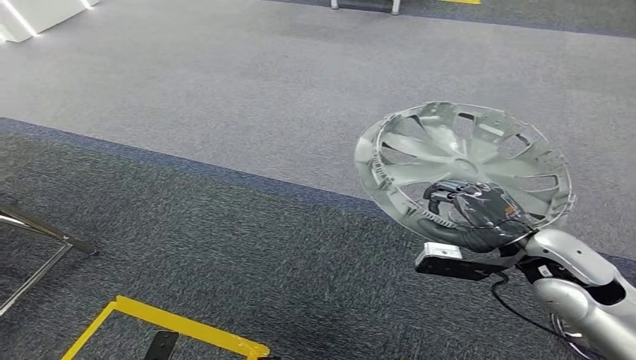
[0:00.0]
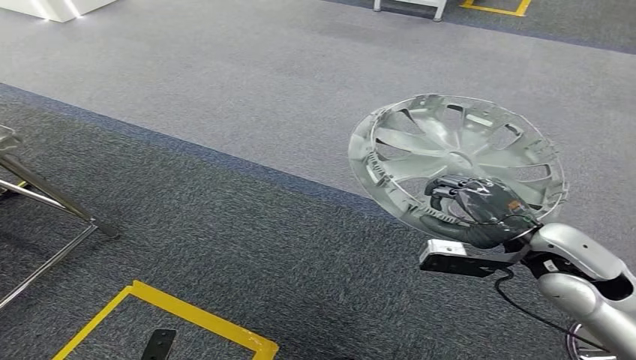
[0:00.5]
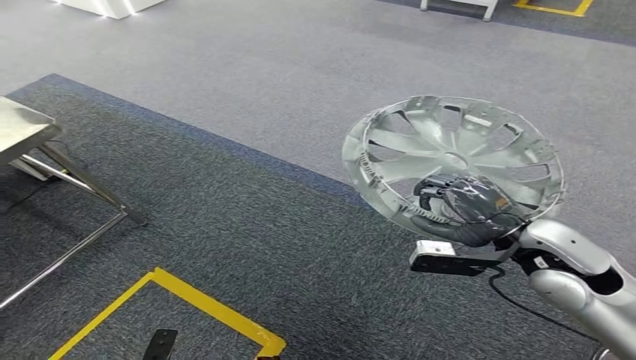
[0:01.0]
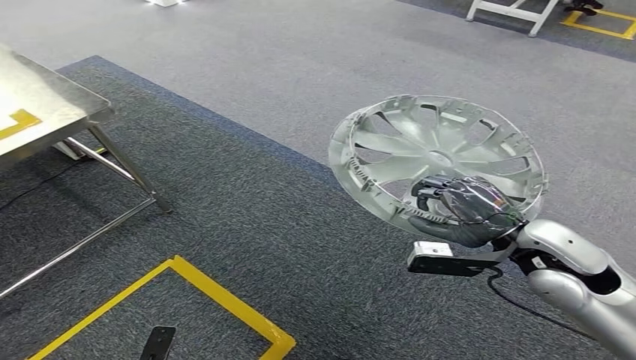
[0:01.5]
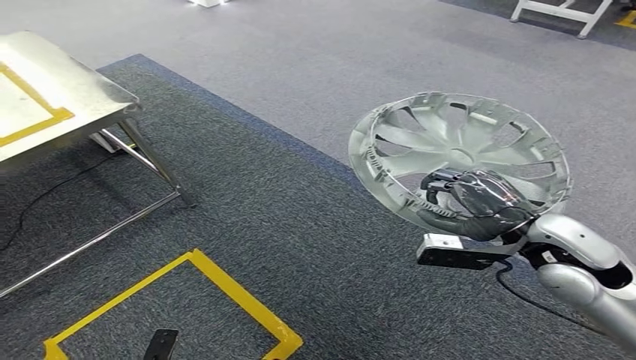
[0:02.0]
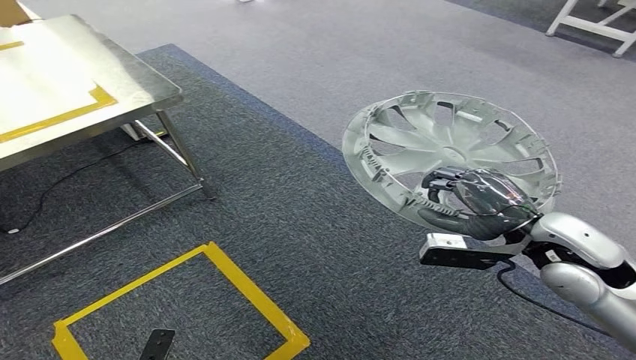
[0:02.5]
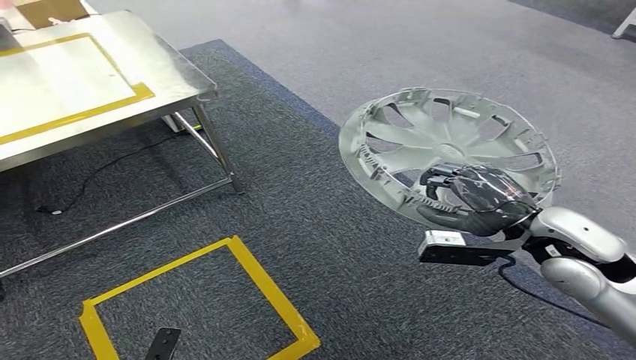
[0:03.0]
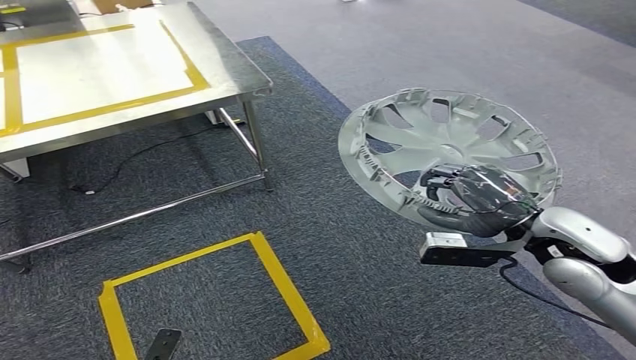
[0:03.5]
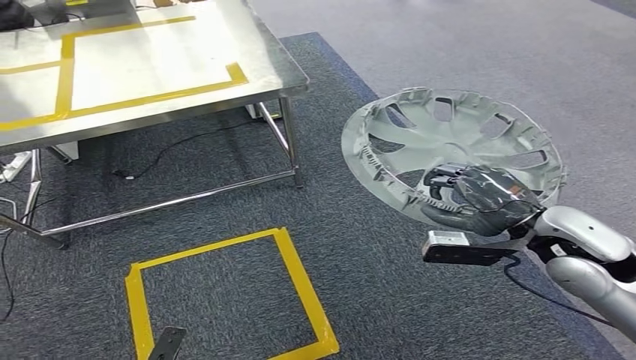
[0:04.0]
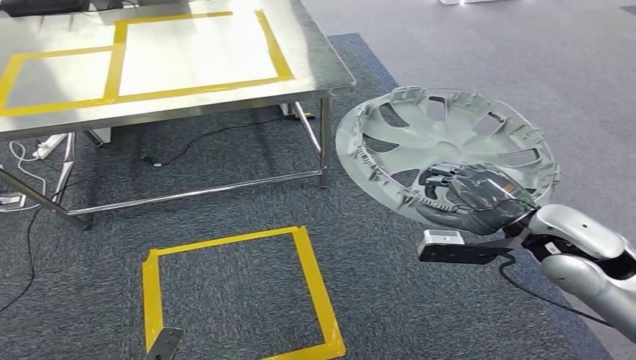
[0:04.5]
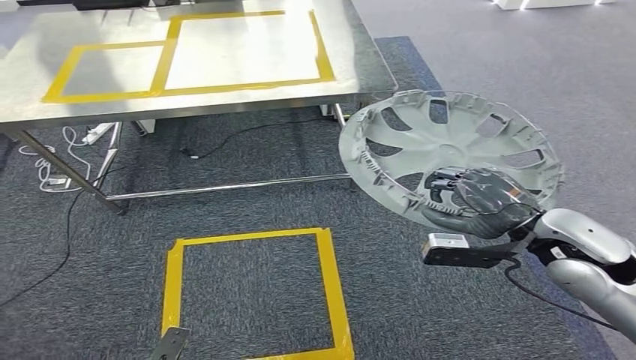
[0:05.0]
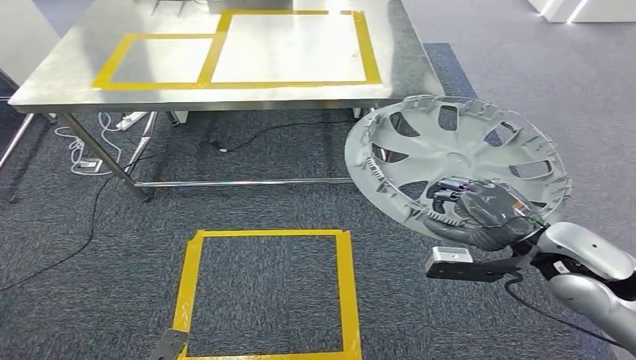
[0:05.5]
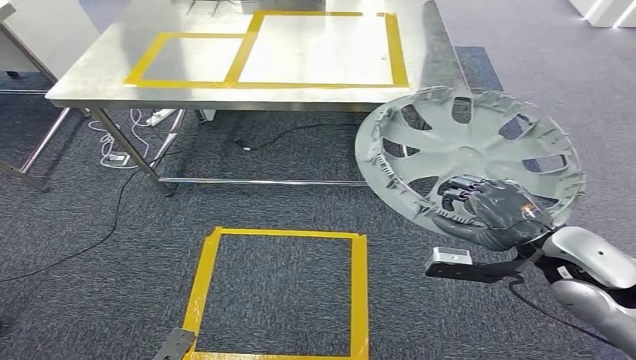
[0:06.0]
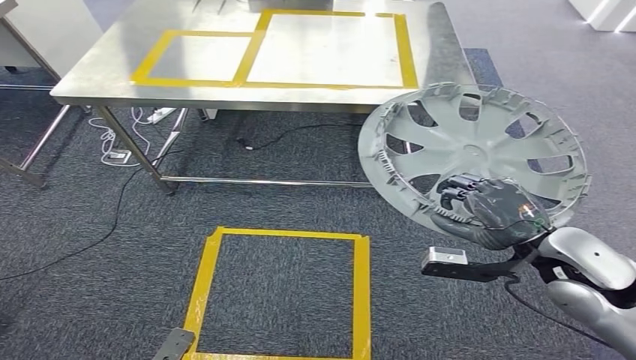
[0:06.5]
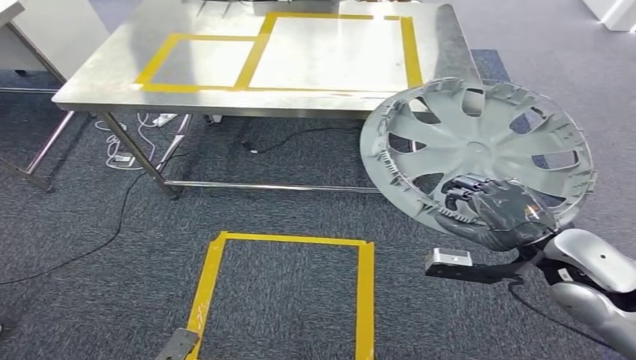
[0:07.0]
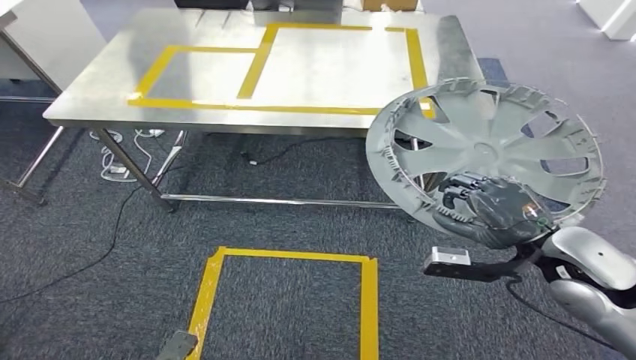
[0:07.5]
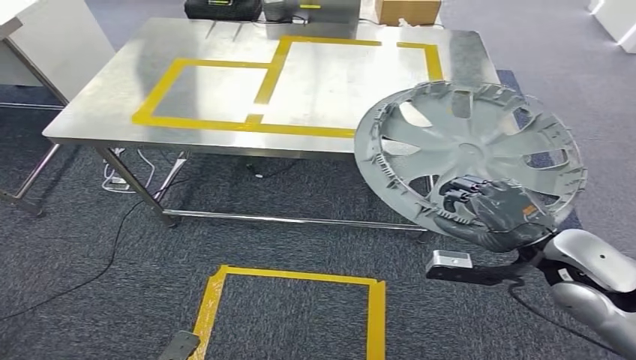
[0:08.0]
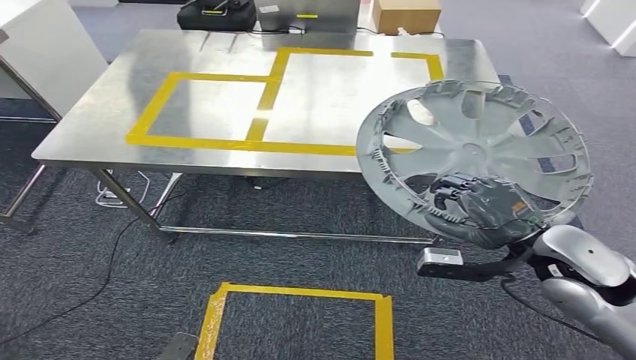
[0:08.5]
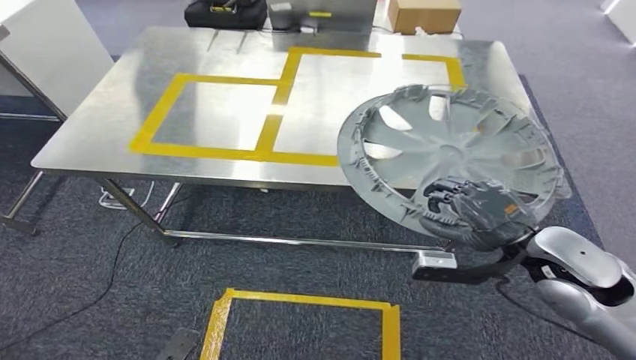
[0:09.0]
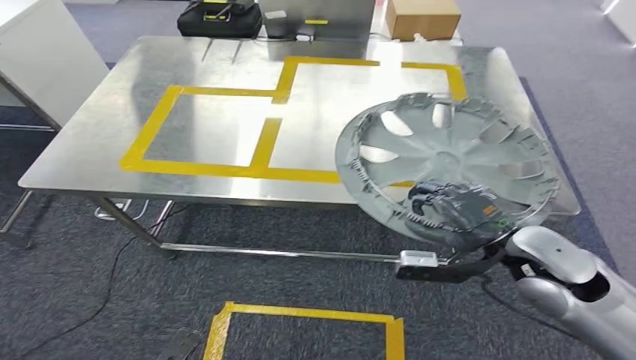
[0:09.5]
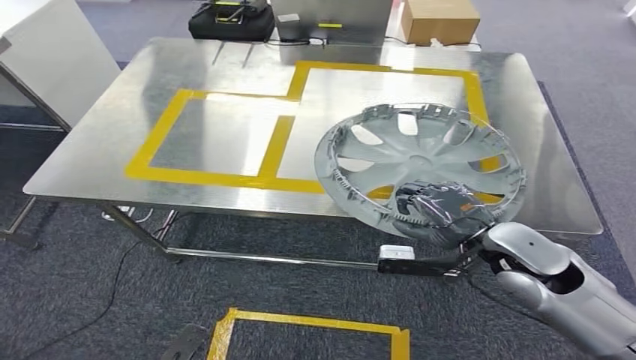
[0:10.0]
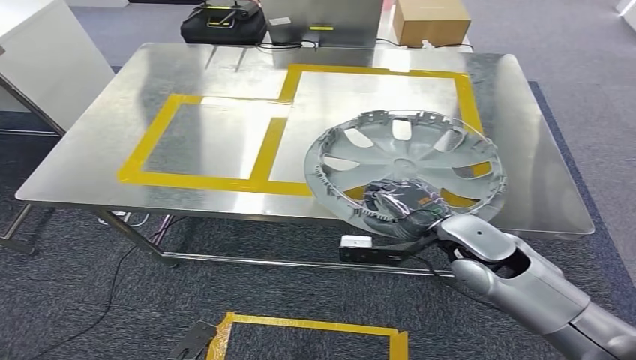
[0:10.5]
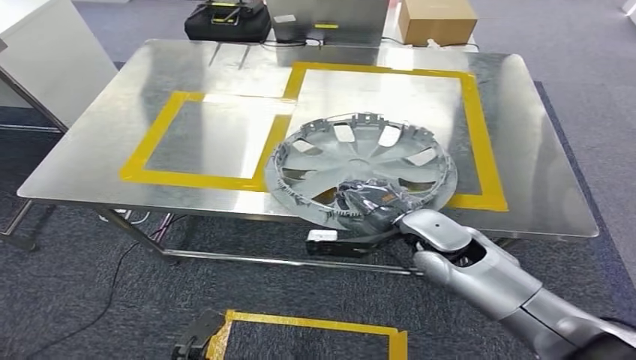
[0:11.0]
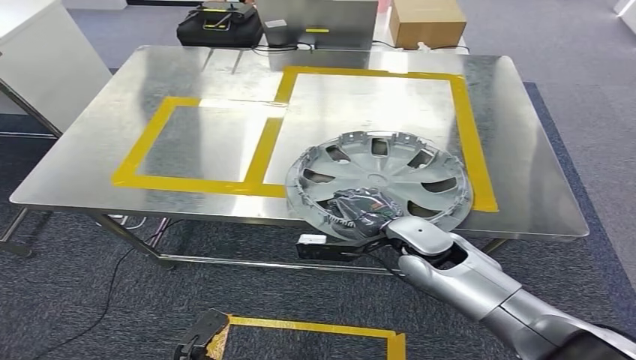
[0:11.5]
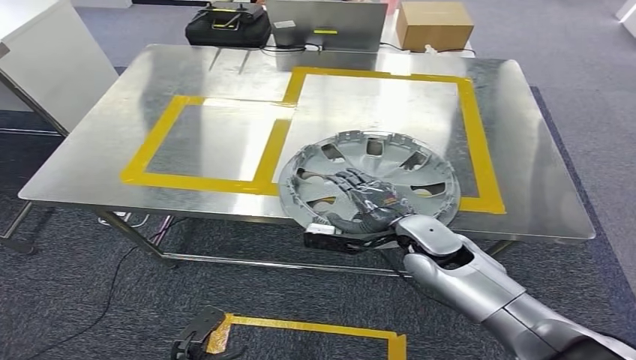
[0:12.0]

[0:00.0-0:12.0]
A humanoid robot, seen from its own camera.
Step, 0:00.0 to 0:09.0: Move the small parts to the workbench.

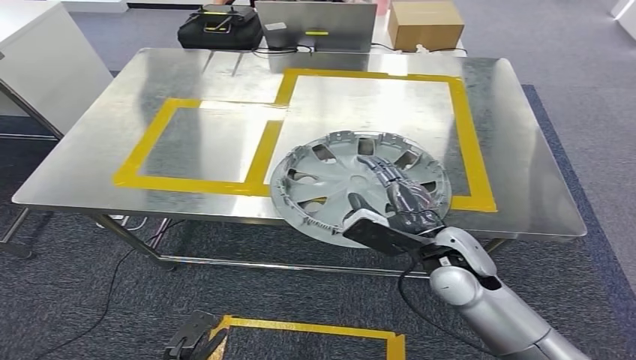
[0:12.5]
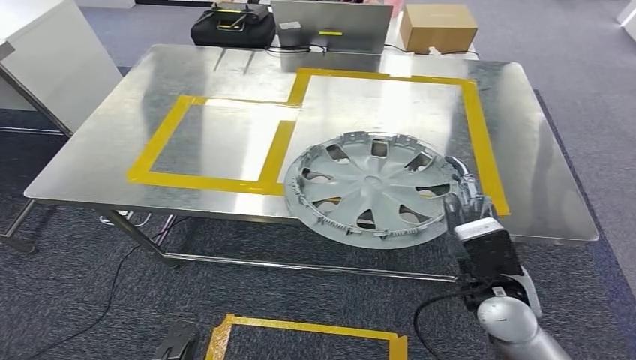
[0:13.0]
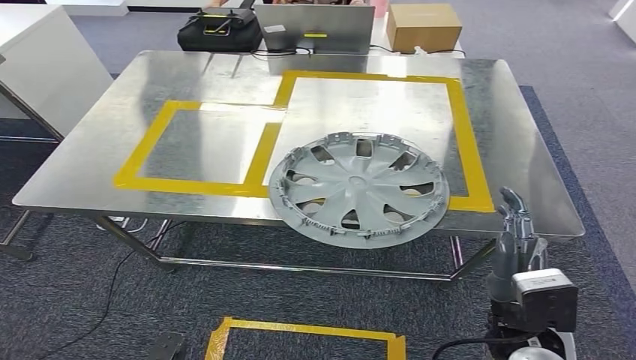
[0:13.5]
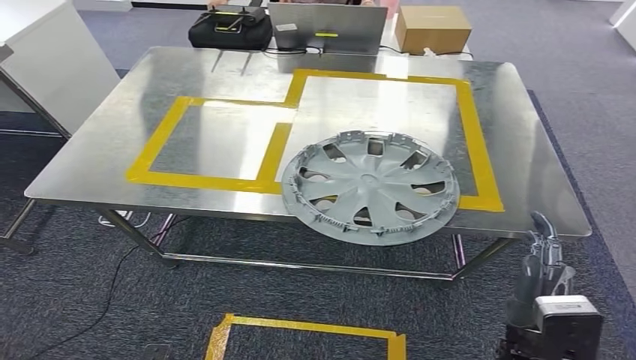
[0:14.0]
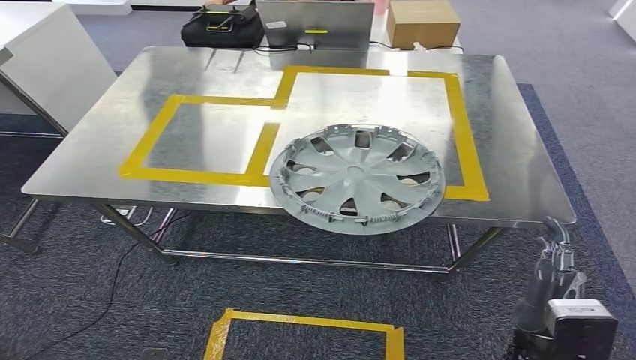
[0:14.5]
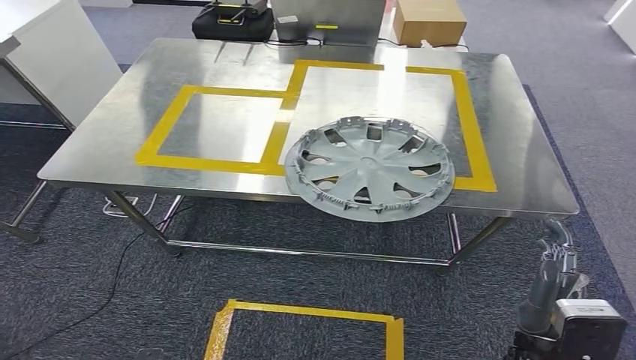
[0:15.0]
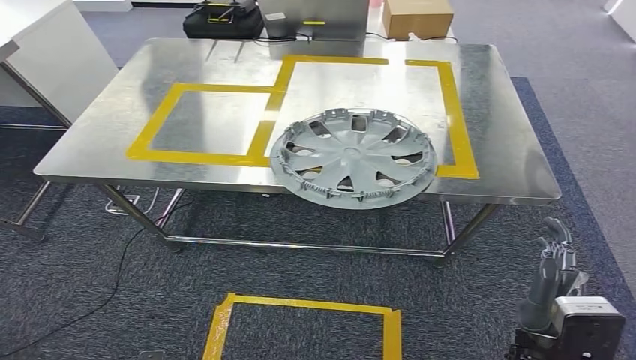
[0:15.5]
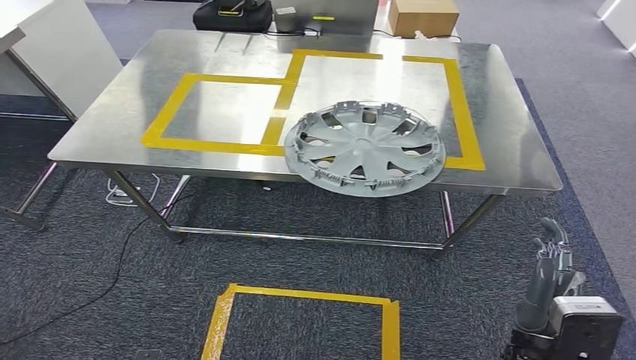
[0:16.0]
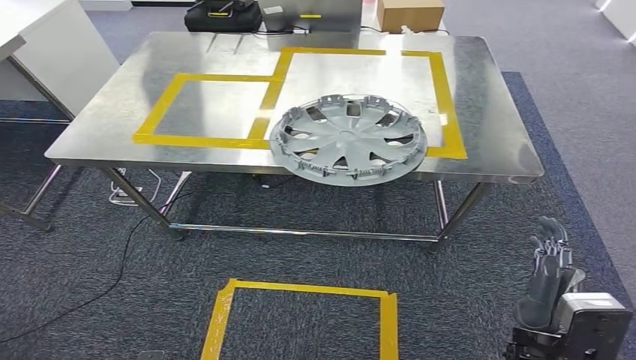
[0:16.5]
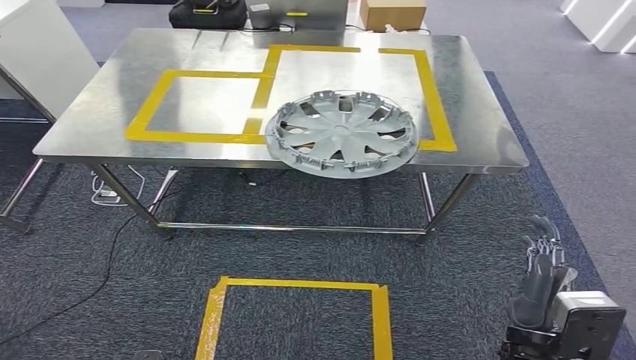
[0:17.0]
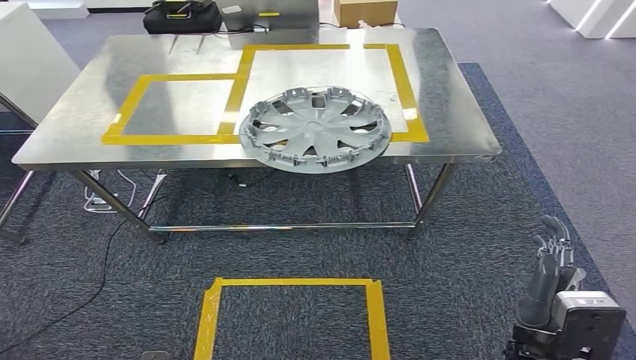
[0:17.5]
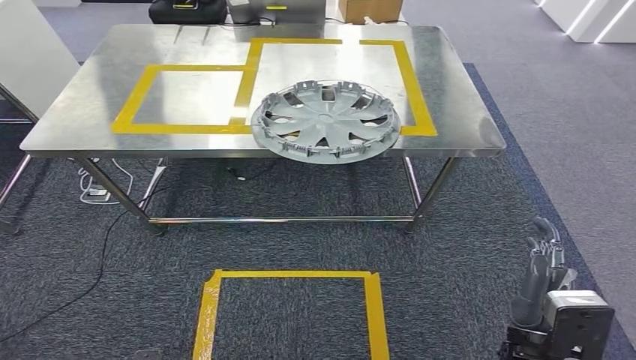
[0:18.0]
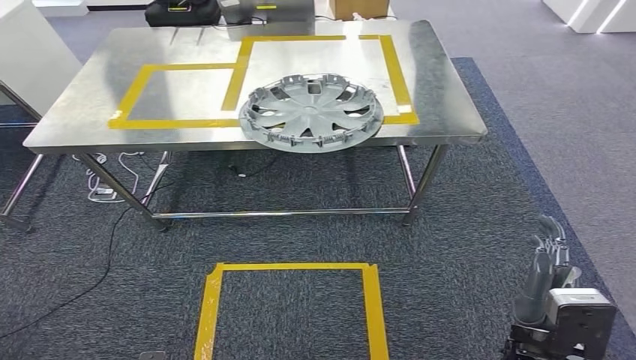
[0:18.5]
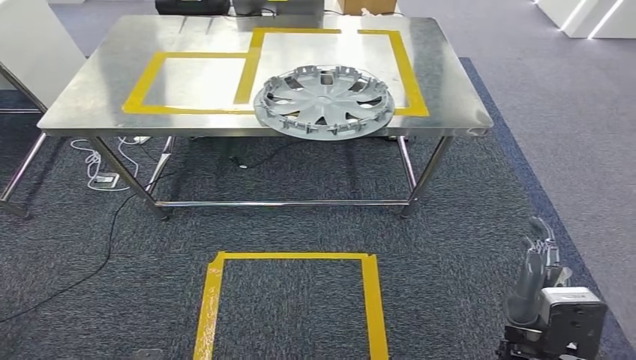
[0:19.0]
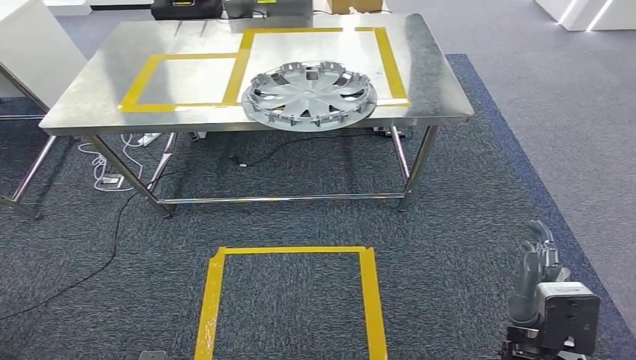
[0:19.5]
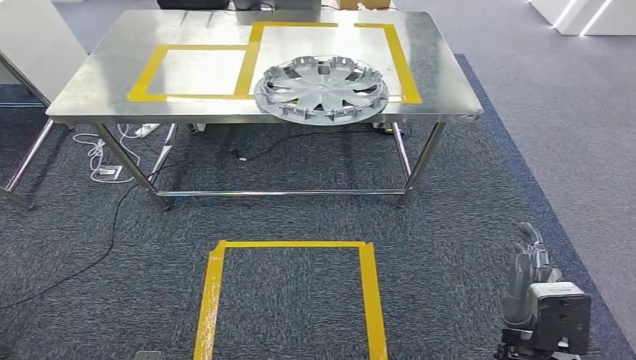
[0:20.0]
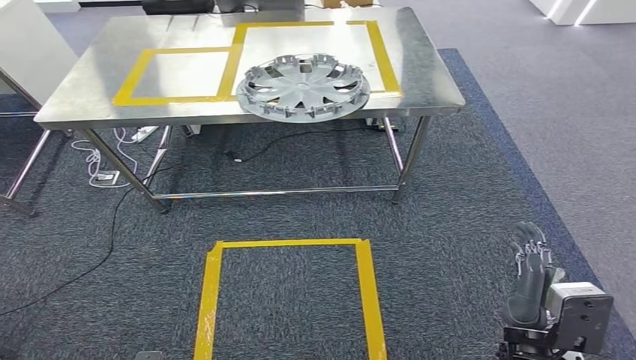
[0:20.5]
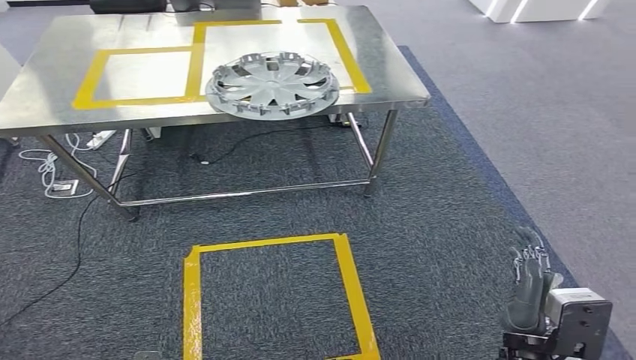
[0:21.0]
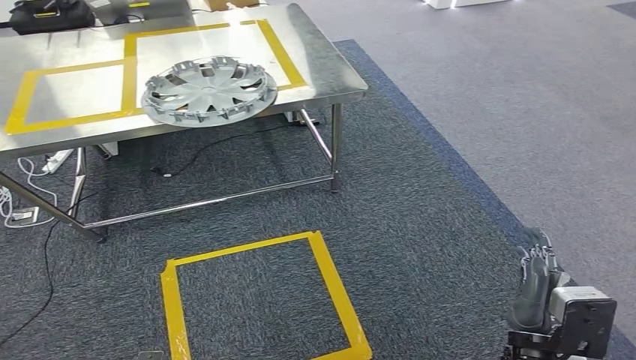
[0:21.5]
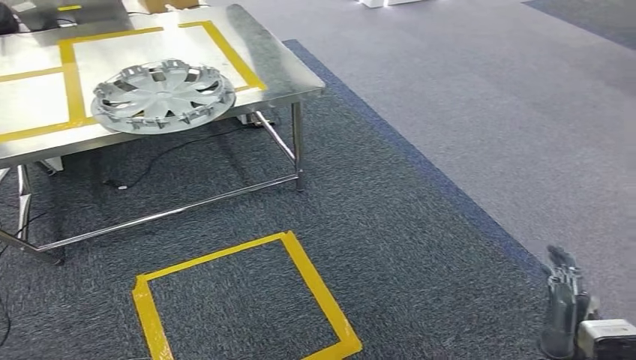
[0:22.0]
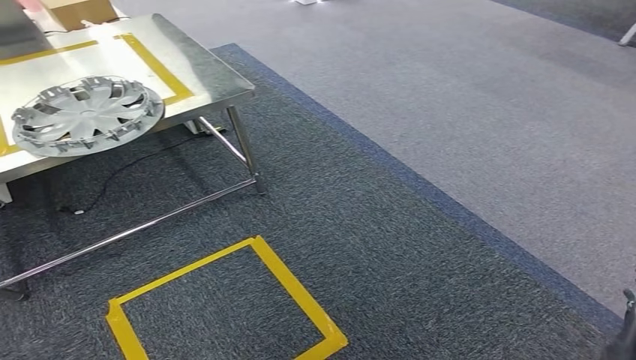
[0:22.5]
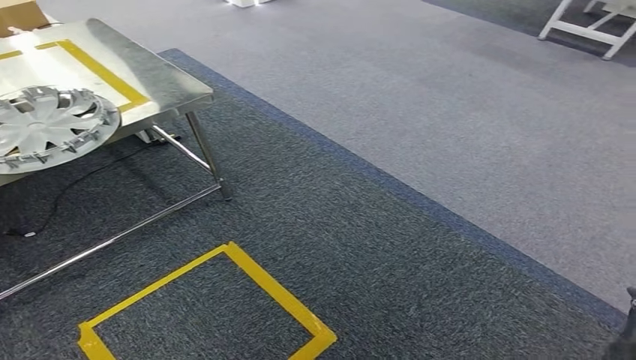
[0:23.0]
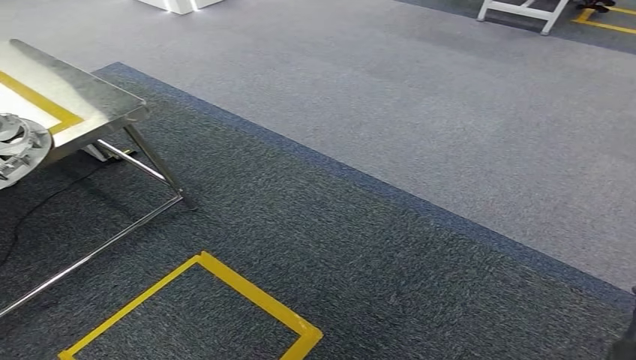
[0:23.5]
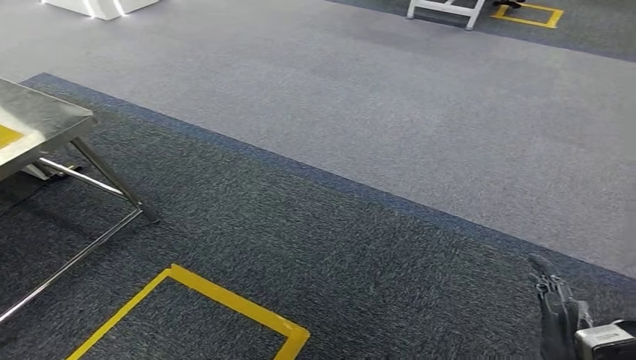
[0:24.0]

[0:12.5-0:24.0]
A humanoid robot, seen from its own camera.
Step, 0:12.5 to 0:16.5: Insert the small parts into the corresponding slots on the workbench.
